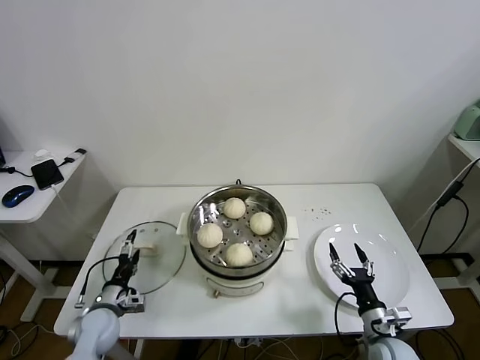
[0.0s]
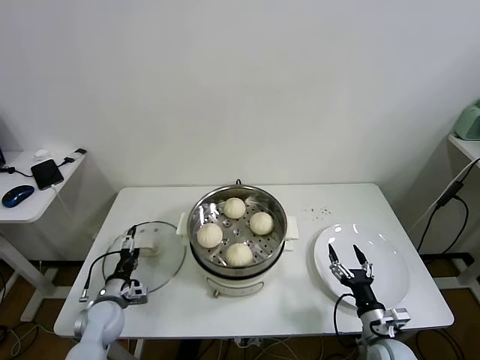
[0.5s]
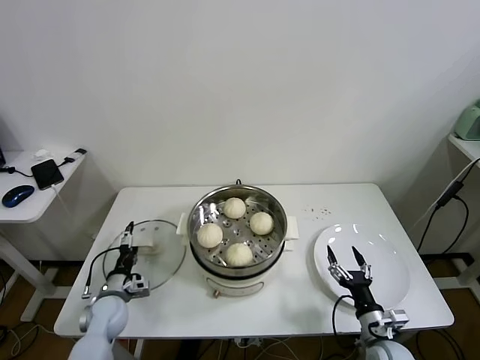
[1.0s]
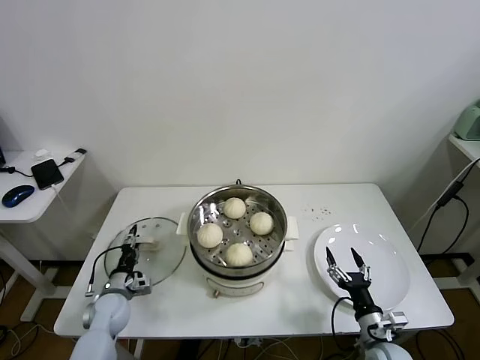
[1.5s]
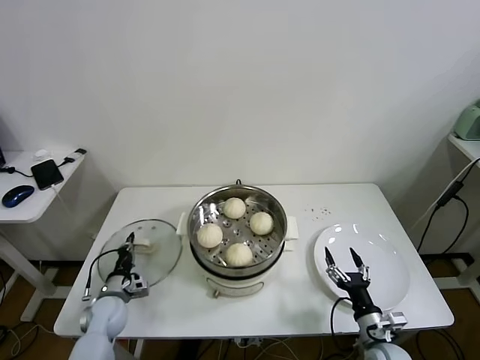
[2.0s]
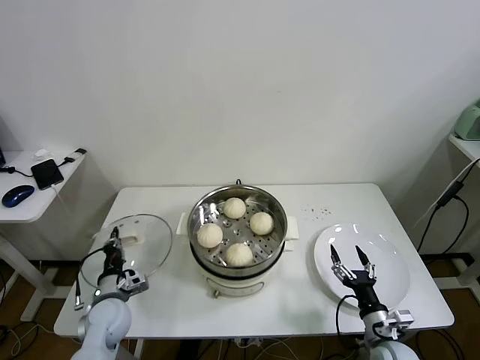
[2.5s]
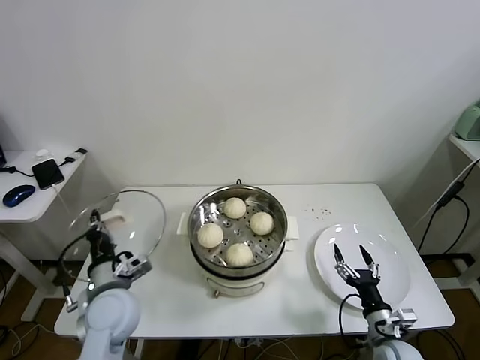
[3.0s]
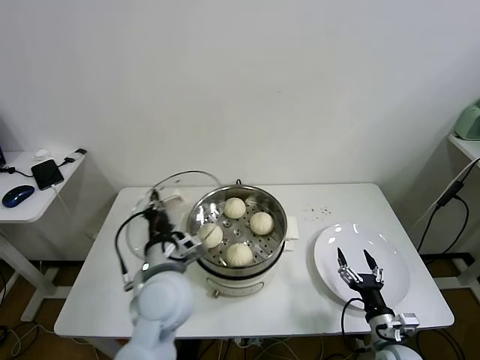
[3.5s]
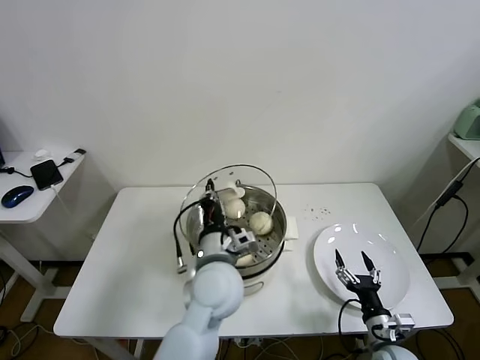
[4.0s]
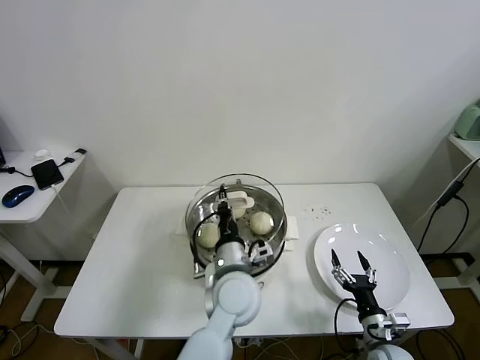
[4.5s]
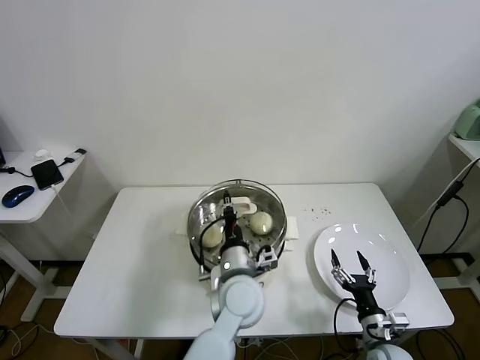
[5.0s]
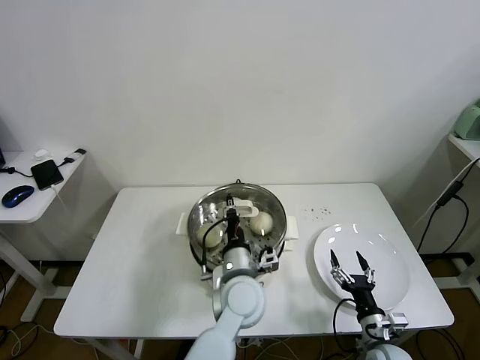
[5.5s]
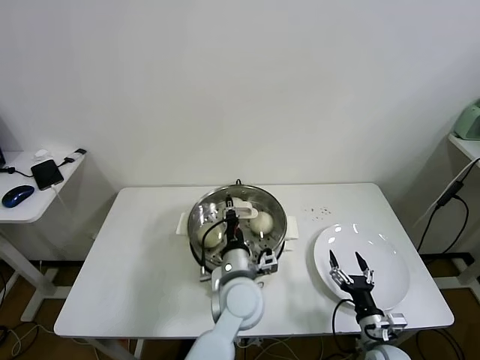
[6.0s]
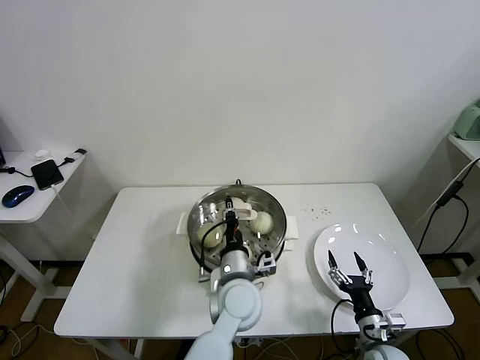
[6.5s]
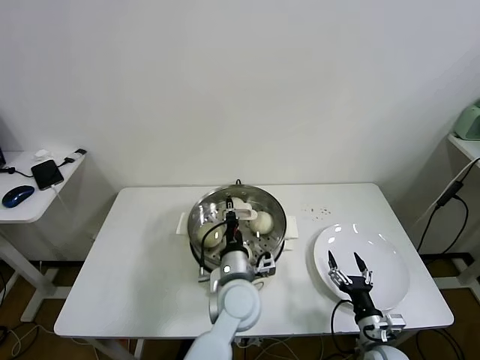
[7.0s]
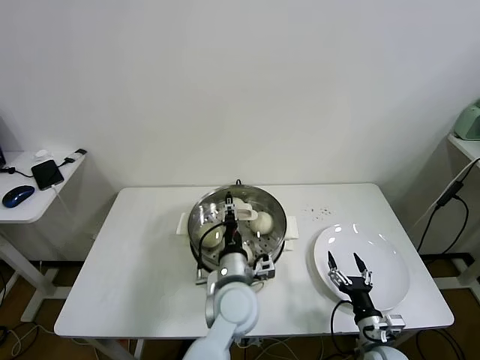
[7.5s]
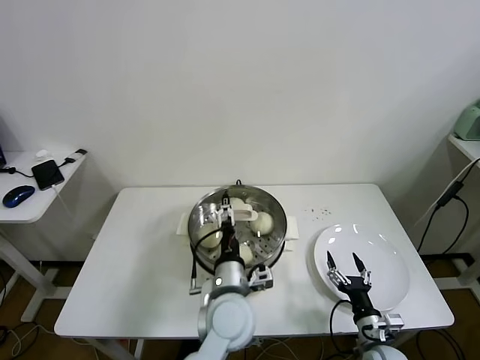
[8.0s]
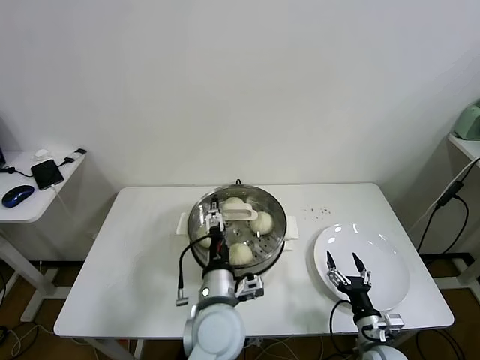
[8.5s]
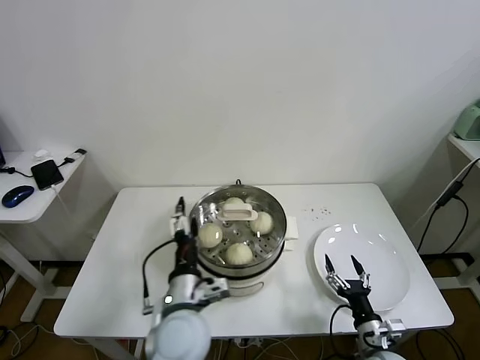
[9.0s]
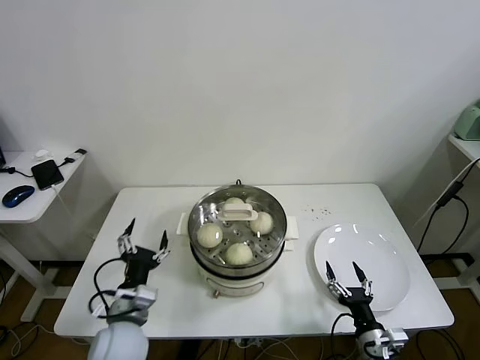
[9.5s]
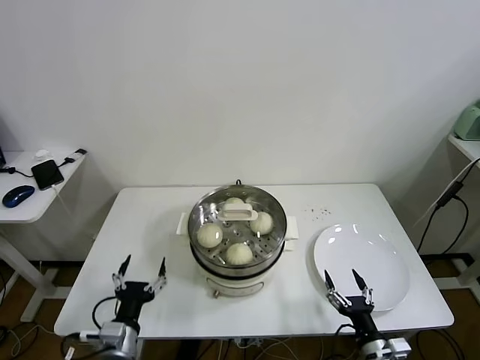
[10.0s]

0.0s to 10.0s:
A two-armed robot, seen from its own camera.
Task of the whole recording: take steamed baozi put them in steamer.
Step, 0.0s to 2.0s: Grasp the pot lid with left gripper.
Step, 2.5s to 7.5s: Place the pot lid on the steamer with left gripper.
0.0s to 2.0s: The left gripper changes place by roughly 5 cm, and closes its fingers.
2.0s to 4.0s: The left gripper travels to the right and upward by some 40 cm.
4.0s to 6.0s: The left gripper heads downward, covering some 5 cm.
6.0s to 8.0s: The left gripper opens its fingers.
8.0s to 10.0s: The right gripper travels backward by some 5 cm, while the left gripper shifts some 25 cm to the left and backward.

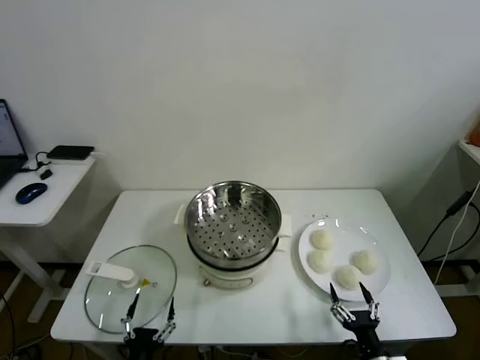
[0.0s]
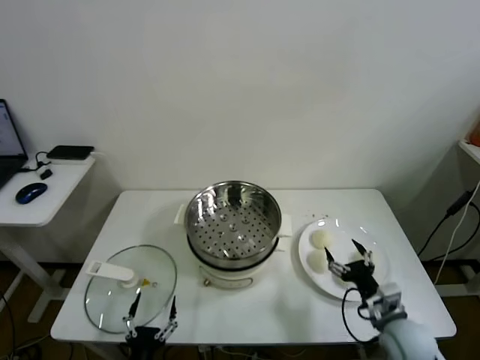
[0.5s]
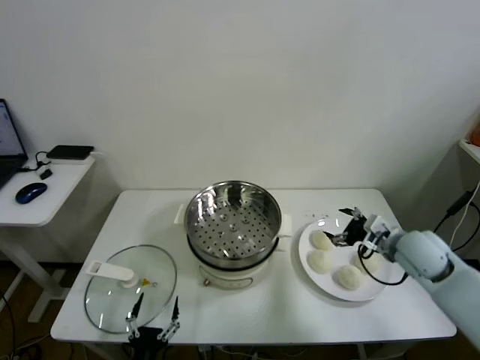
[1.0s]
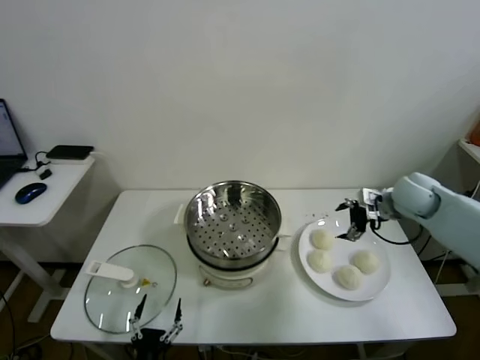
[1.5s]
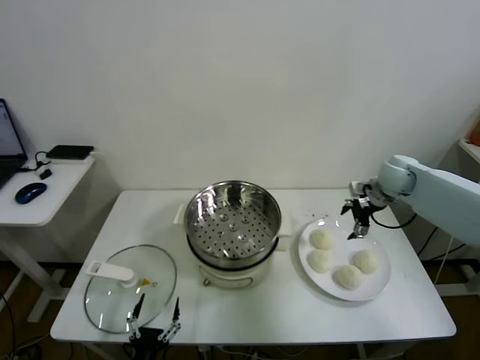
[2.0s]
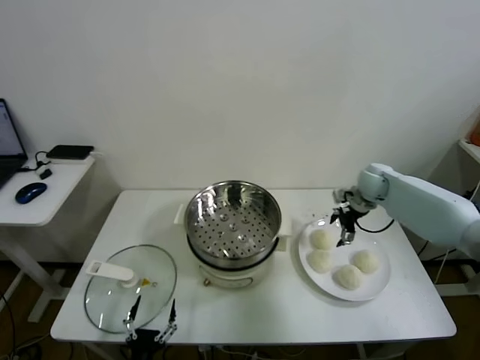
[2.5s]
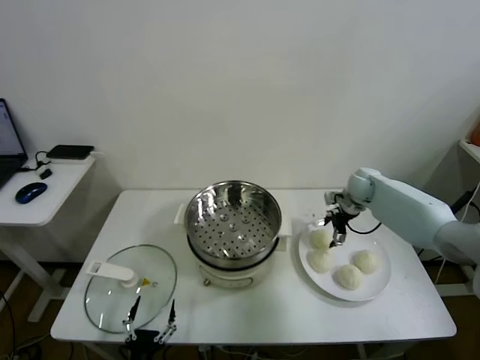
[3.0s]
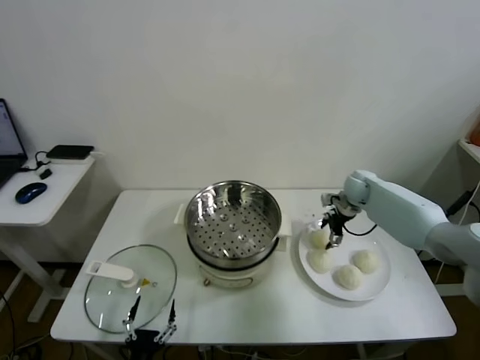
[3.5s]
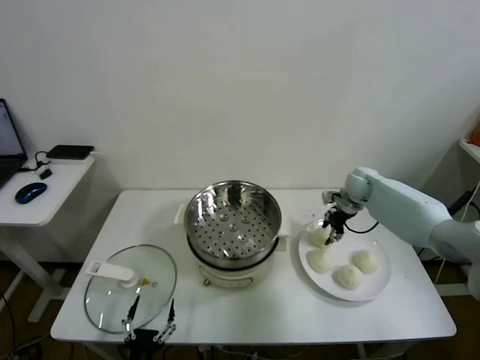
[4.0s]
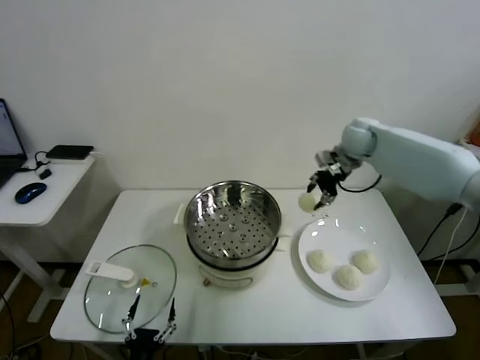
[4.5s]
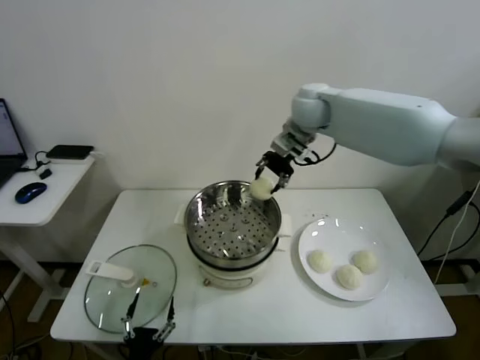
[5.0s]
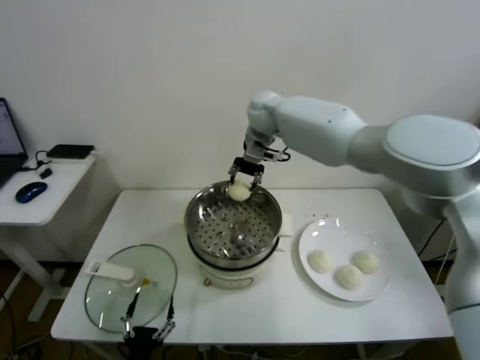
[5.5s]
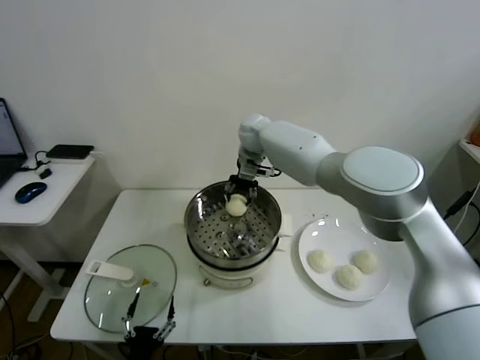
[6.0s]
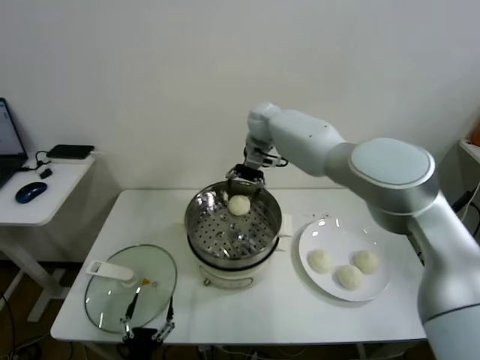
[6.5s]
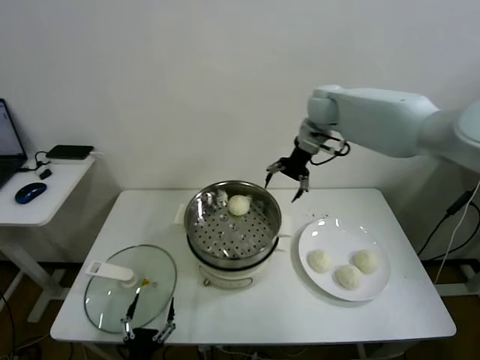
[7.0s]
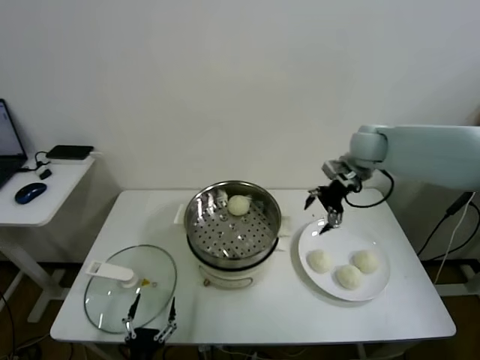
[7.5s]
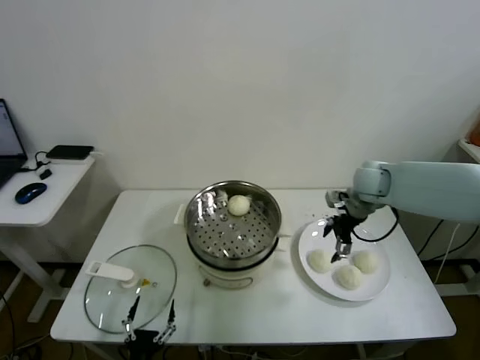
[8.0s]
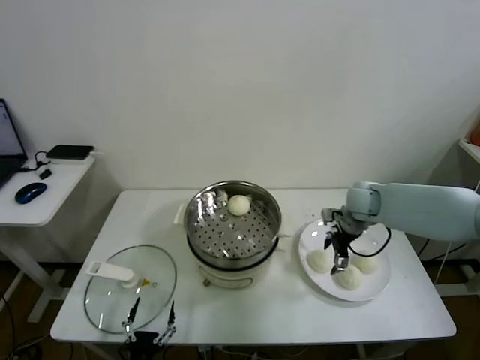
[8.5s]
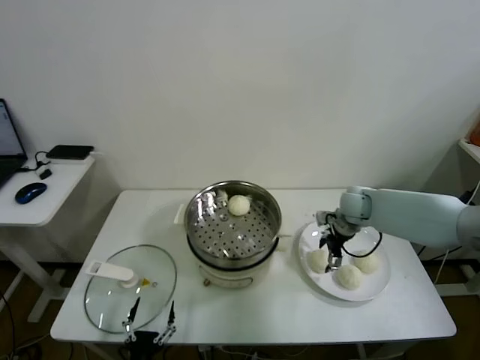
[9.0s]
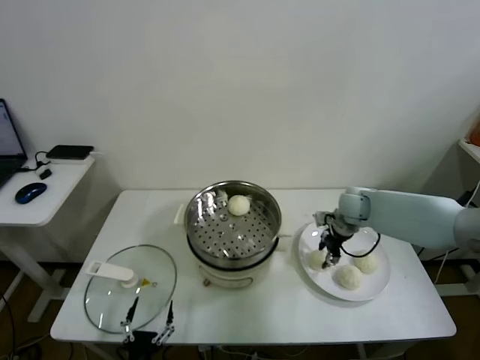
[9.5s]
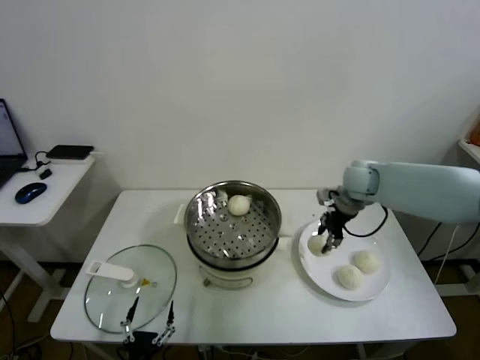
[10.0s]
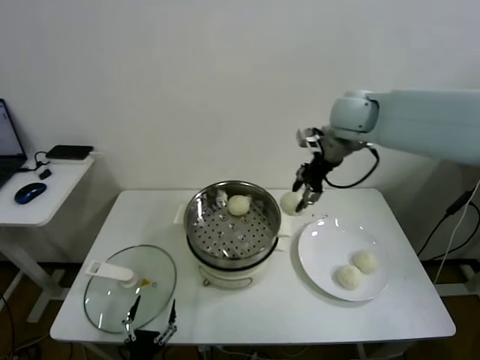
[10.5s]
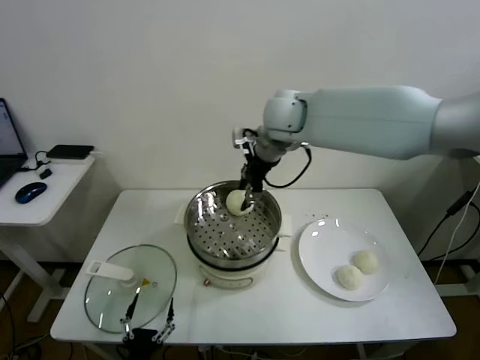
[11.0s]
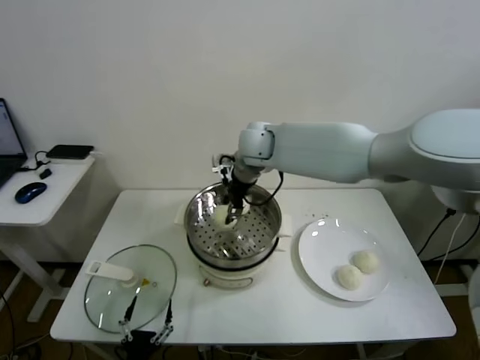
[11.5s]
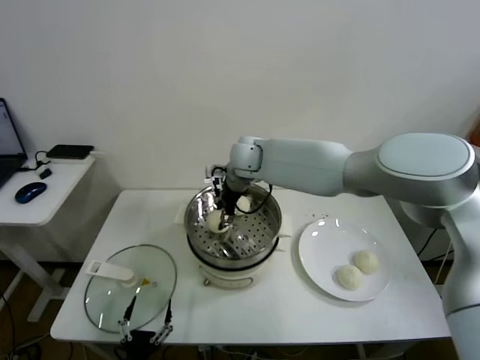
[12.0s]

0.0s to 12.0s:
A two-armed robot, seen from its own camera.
Task of the whole recording: take steamed baozi put them in steamer.
Step, 0.0s to 3.5s: Grasp the baozi in the plate with right gripper.
Step, 4.0s to 6.0s: Place the baozi on the steamer with right gripper.
Step, 6.5s to 9.0s: Grasp the baozi in the plate with right gripper.
2.0s to 4.0s: The right gripper moves downward, some 5 cm, and closes.
4.0s to 6.0s: The right gripper shifts some 35 cm to the left and upward.
6.0s to 8.0s: The right gripper moves to the right and backward, approximately 30 cm, and opens up.
8.0s to 10.0s: The right gripper moves about 10 cm downward and comes back, and closes up.
10.0s to 12.0s: The right gripper goes some 25 cm to the left.

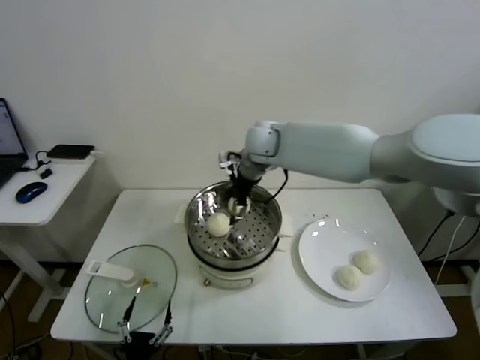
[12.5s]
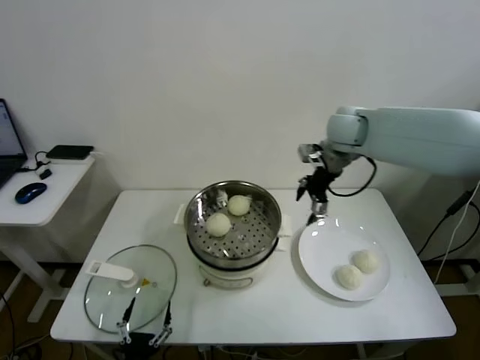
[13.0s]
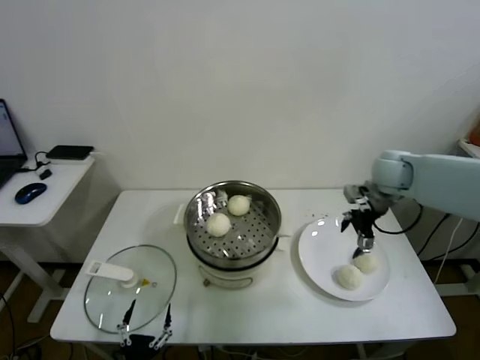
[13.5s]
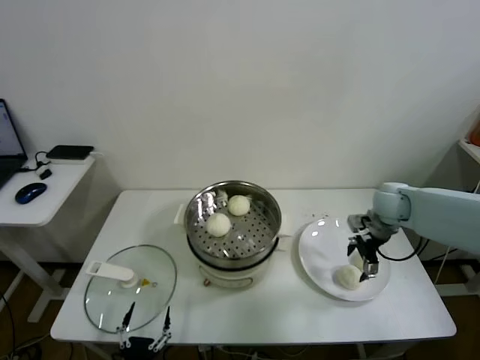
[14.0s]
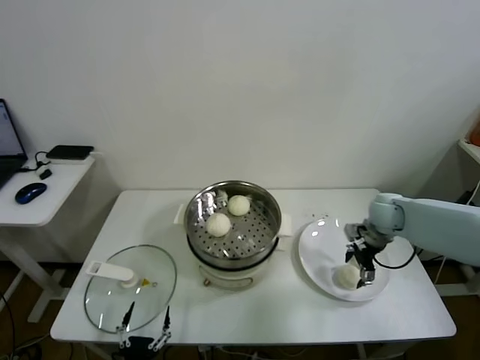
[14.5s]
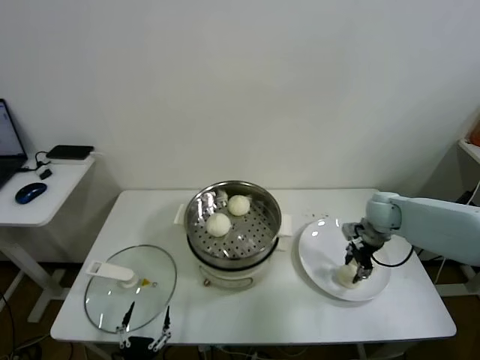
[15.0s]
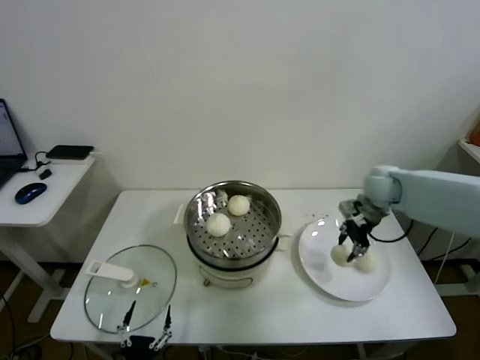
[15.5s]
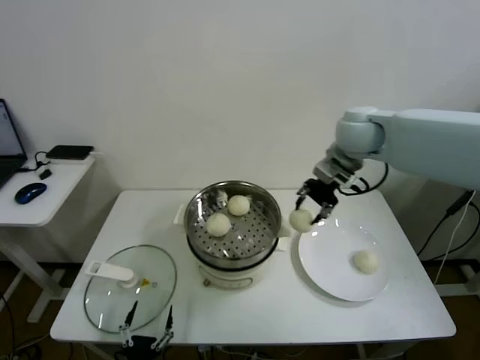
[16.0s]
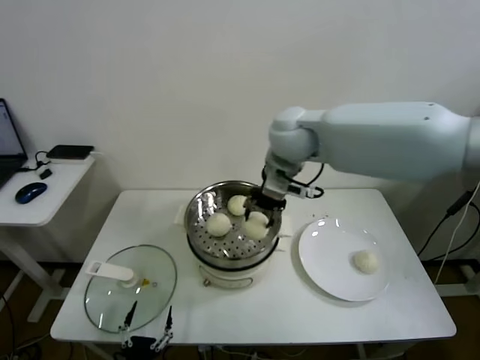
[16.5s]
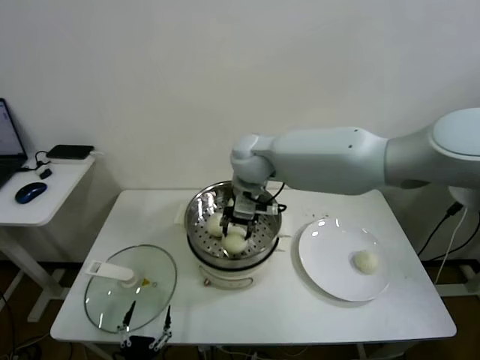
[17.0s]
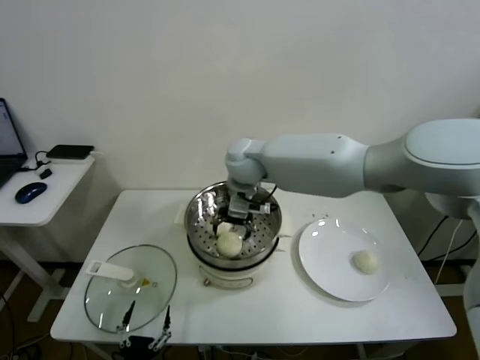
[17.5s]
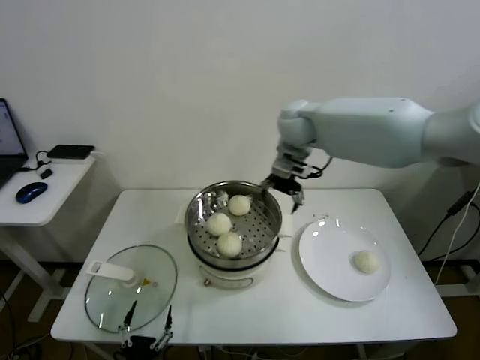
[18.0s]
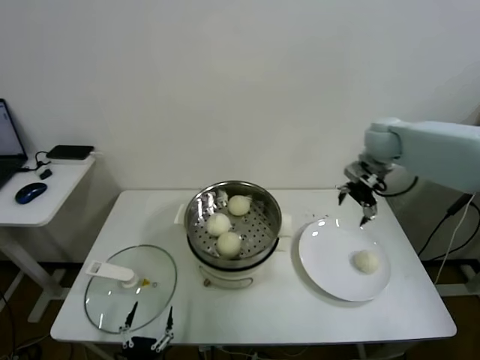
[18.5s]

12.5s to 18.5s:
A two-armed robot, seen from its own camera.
Task of the whole recording: take steamed baozi put them in steamer.
Step, 12.5s to 15.0s: Grasp the baozi in the plate with right gripper.
Step, 15.5s to 17.5s: Place the baozi on the steamer with right gripper.
12.5s to 14.5s: The right gripper goes approximately 35 cm to the right and downward.
14.5s to 16.5s: The right gripper heads to the left and upward, covering roughly 35 cm, and closes its fingers.
16.5s to 18.5s: The right gripper travels to the right by some 25 cm, and opens up.
